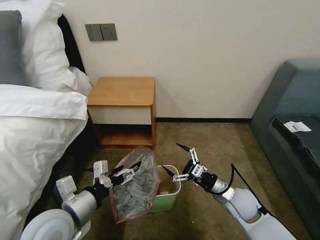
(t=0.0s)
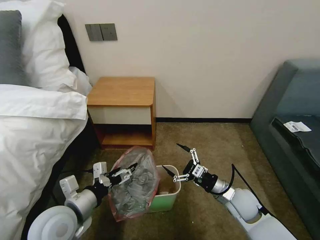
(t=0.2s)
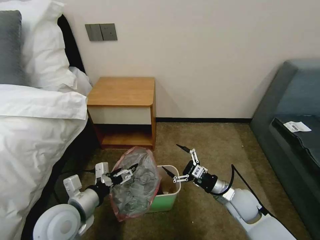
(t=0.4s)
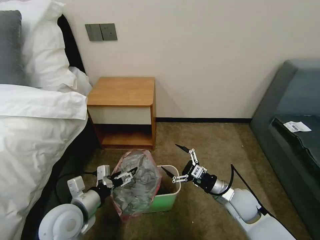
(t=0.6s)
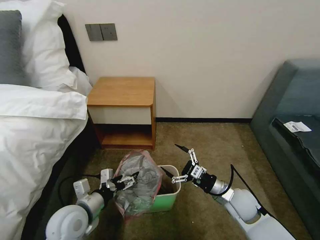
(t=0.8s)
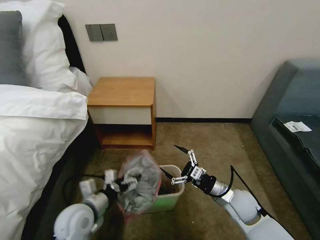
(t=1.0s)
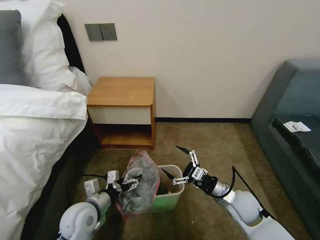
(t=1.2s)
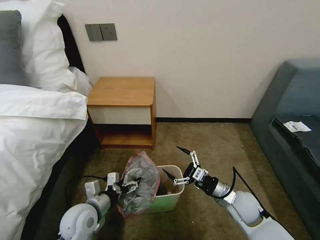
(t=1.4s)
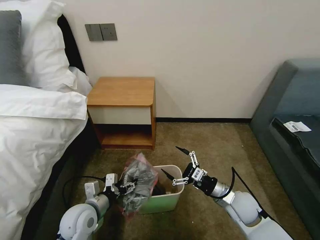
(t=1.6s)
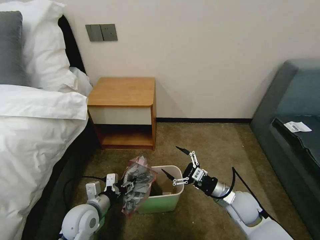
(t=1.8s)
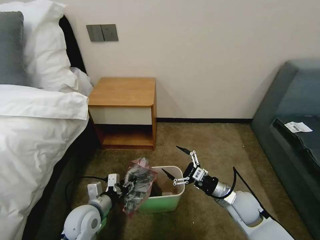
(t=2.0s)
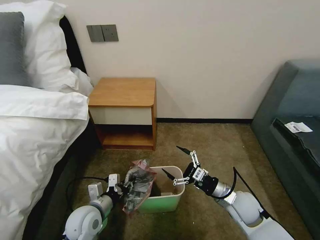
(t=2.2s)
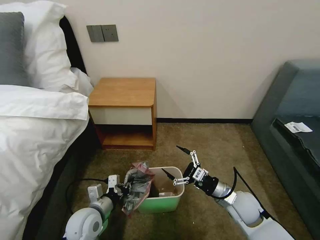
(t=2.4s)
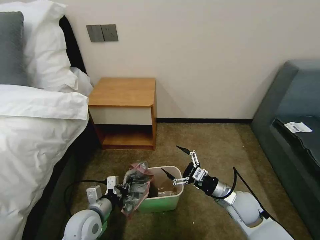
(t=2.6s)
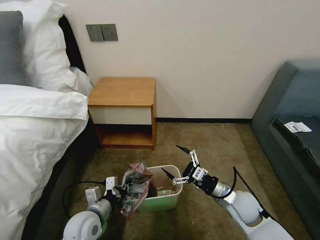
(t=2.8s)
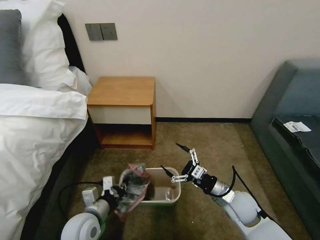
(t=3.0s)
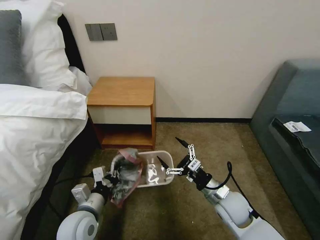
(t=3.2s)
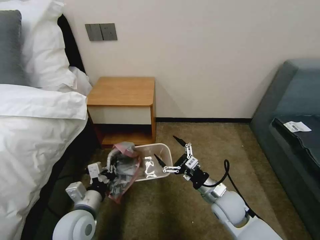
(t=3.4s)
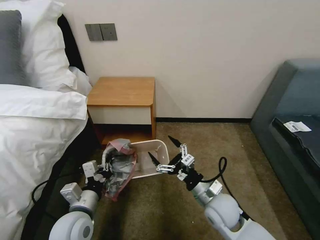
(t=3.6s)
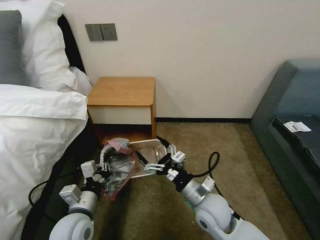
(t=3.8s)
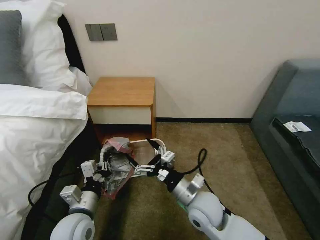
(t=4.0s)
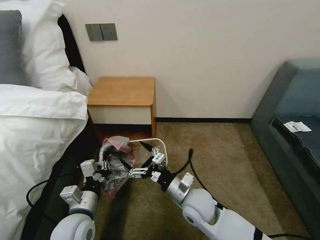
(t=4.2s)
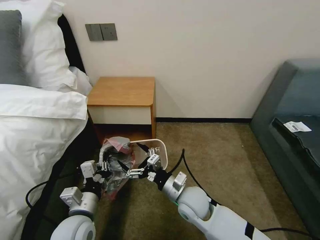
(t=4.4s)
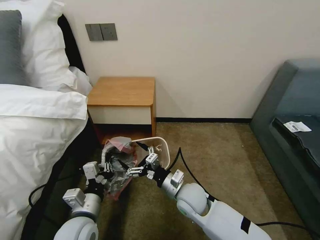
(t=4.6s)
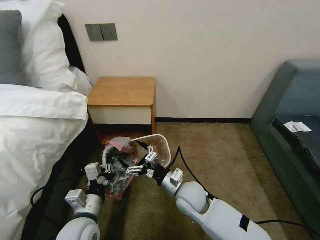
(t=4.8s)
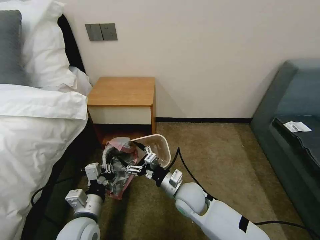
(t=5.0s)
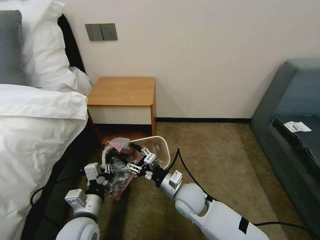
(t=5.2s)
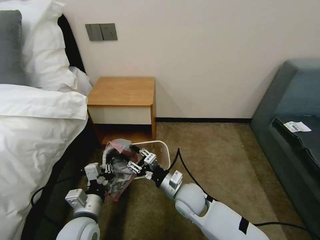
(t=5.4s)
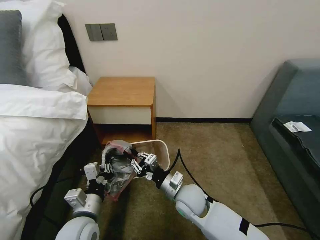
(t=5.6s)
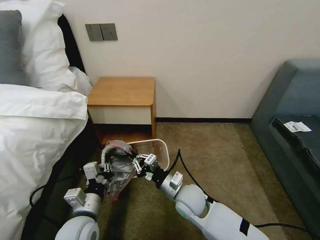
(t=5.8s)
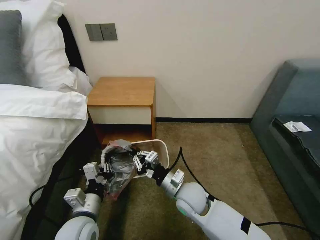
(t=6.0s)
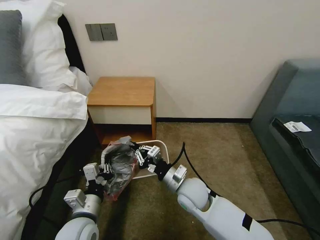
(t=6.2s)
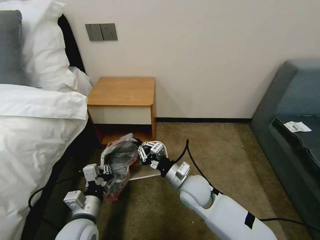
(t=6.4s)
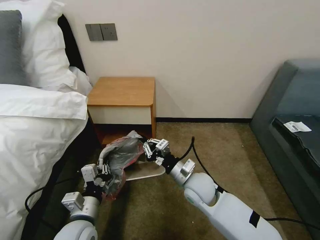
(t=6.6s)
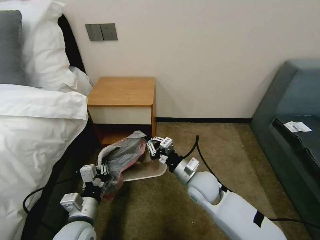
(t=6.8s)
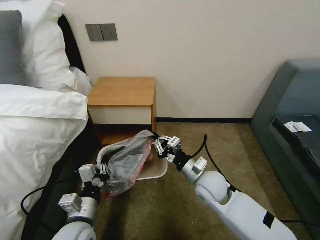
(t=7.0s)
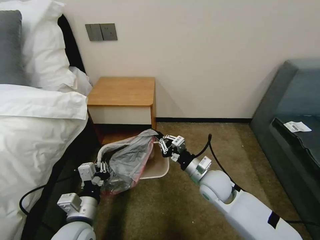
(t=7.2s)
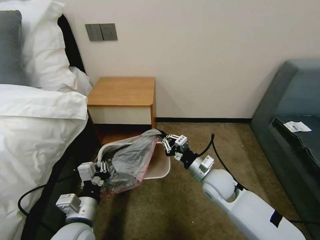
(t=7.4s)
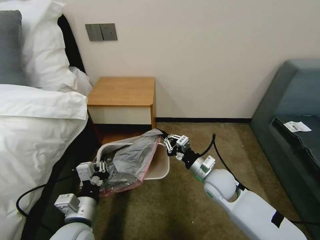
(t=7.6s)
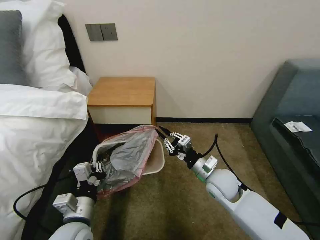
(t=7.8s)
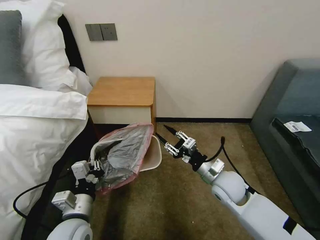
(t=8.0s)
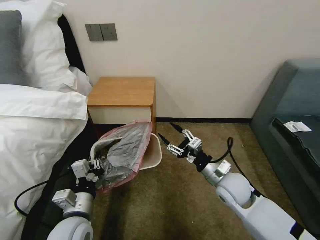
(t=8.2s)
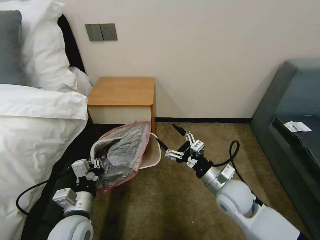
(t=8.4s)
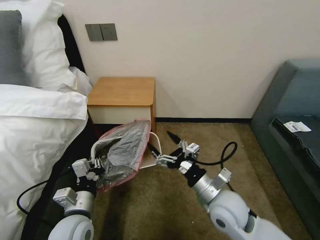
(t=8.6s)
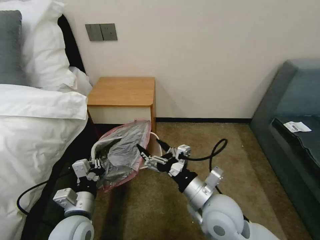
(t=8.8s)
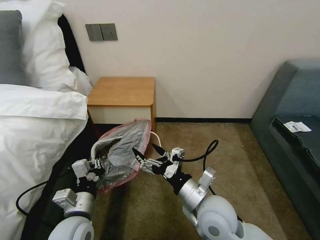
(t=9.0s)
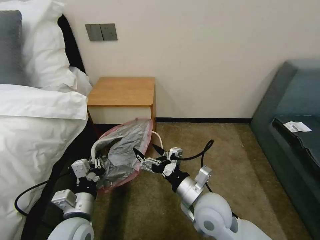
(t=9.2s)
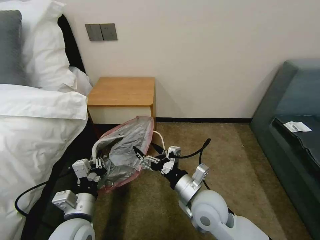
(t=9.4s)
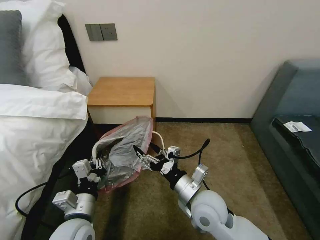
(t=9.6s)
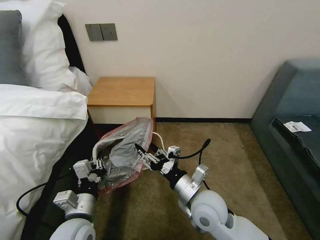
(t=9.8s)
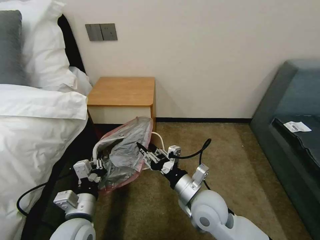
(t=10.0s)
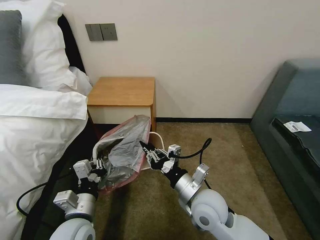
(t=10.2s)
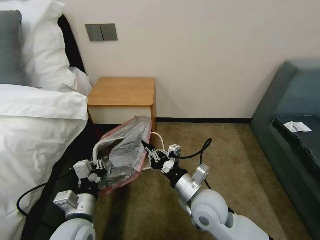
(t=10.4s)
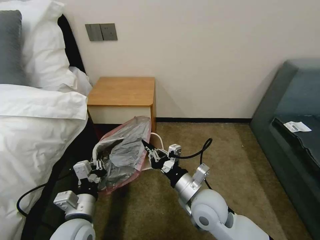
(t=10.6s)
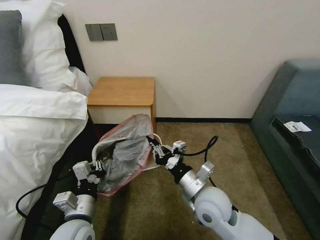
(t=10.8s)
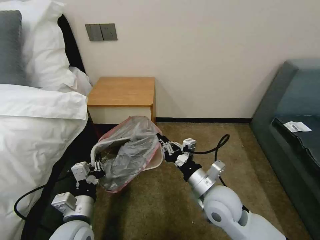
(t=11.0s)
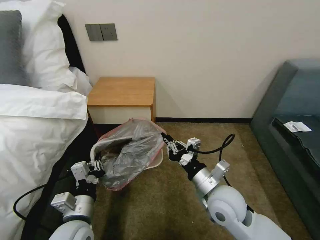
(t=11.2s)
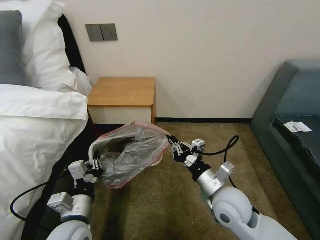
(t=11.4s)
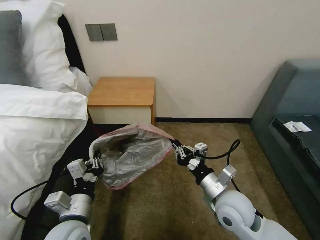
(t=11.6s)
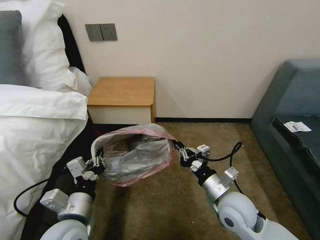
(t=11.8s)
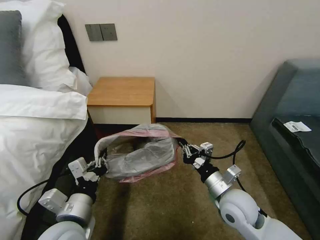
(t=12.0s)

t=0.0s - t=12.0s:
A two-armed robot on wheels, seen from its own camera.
Task of the whole recording: Pick up the garbage bag from the table and place it over the trash can.
t=0.0s - t=1.6s: The left gripper shifts about 15 cm downward.
t=1.6s - t=3.0s: The left gripper closes its fingers.
t=3.0s - t=4.4s: The right gripper is displaced to the left by some 15 cm.
t=4.4s - t=6.0s: The right gripper closes its fingers.
t=6.0s - t=7.6s: The right gripper is displaced to the right by approximately 10 cm.
t=7.6s - t=9.0s: The right gripper moves backward, upward and to the left, some 15 cm, and opens.
t=9.0s - t=10.4s: The right gripper closes.
t=10.4s - t=12.0s: The right gripper moves to the right, approximately 10 cm. The left gripper moves upward, approximately 5 cm.

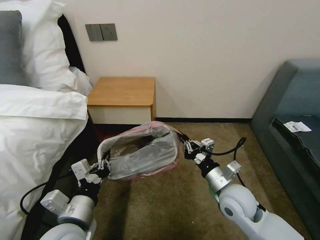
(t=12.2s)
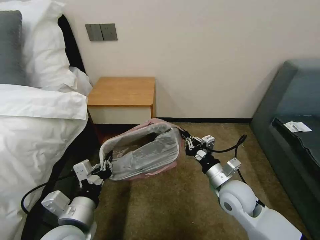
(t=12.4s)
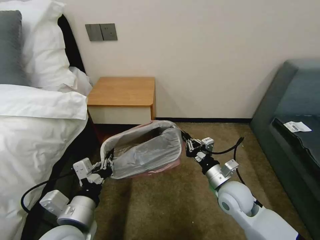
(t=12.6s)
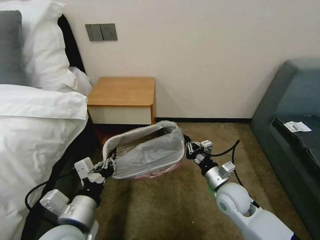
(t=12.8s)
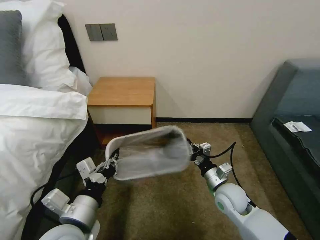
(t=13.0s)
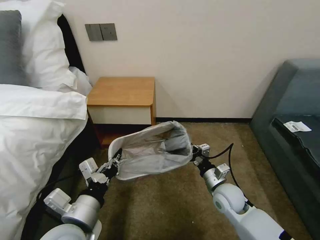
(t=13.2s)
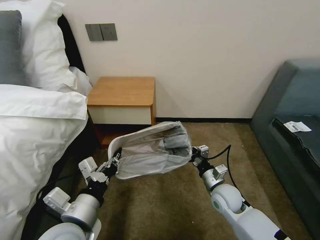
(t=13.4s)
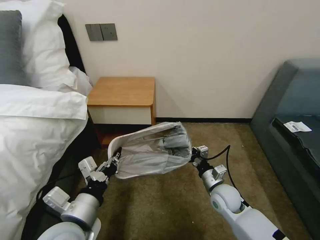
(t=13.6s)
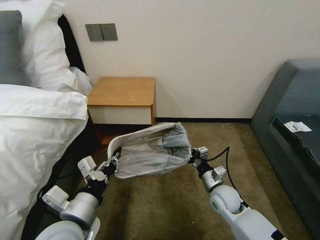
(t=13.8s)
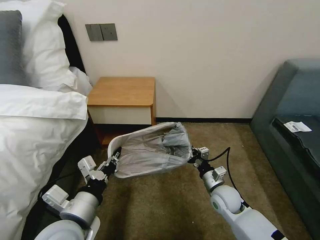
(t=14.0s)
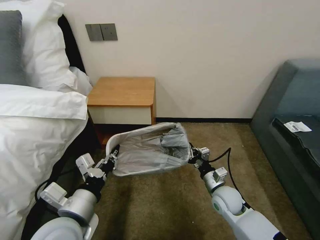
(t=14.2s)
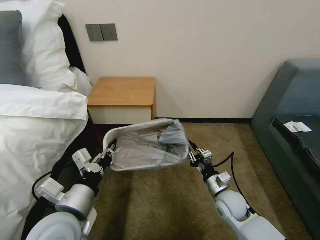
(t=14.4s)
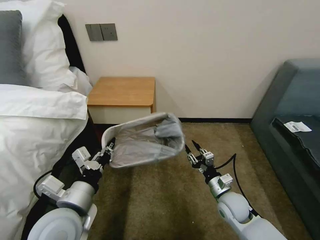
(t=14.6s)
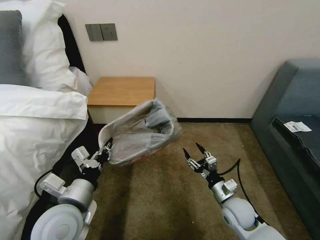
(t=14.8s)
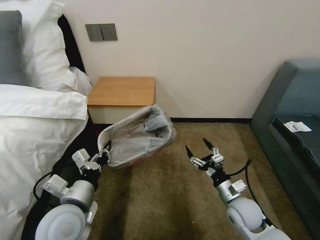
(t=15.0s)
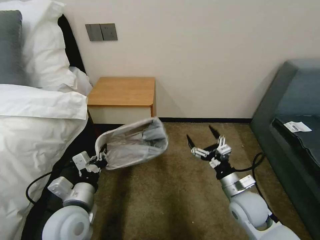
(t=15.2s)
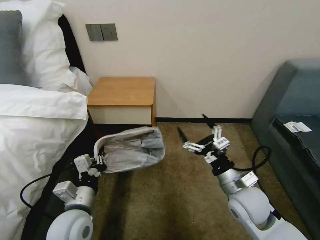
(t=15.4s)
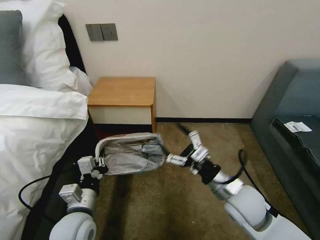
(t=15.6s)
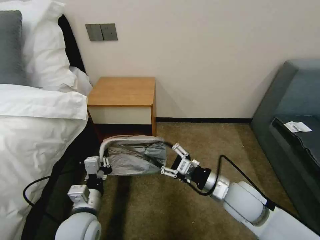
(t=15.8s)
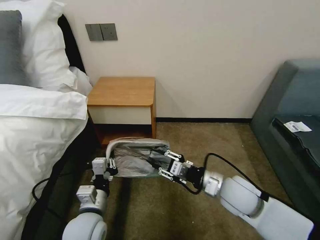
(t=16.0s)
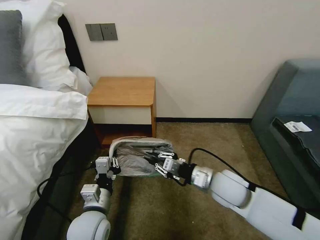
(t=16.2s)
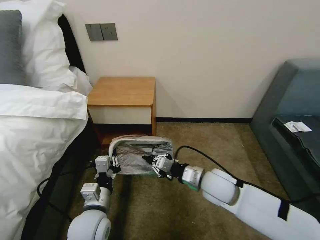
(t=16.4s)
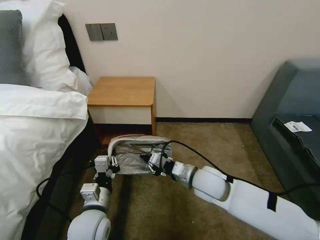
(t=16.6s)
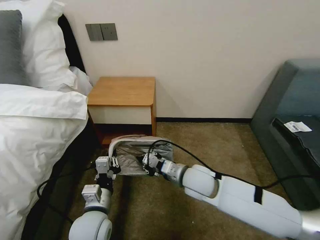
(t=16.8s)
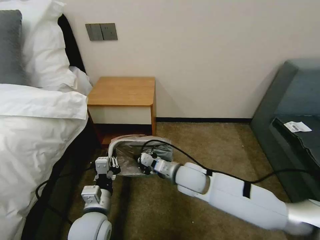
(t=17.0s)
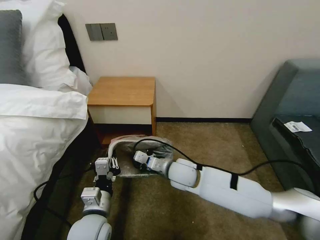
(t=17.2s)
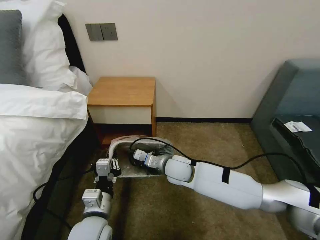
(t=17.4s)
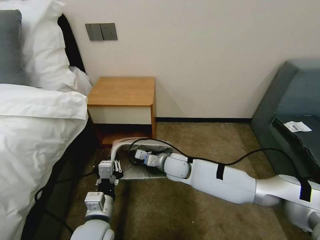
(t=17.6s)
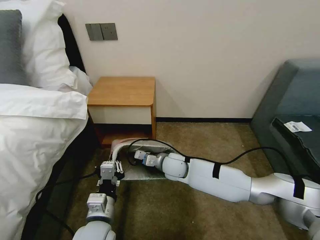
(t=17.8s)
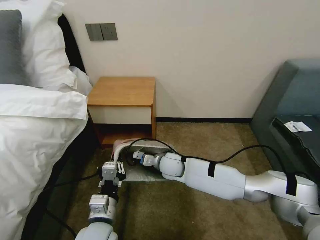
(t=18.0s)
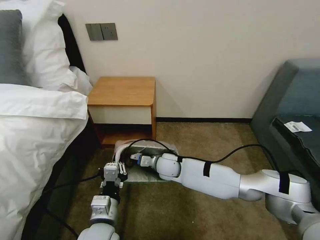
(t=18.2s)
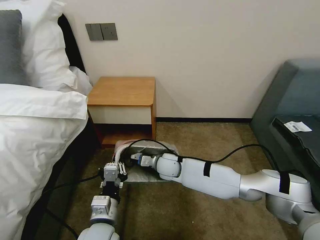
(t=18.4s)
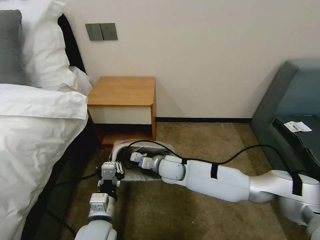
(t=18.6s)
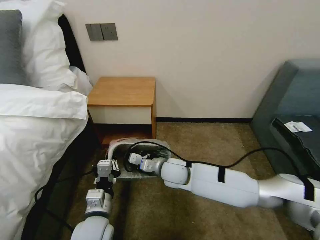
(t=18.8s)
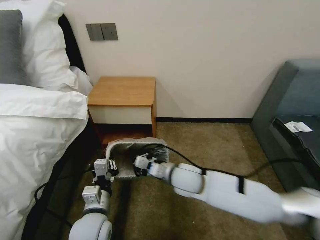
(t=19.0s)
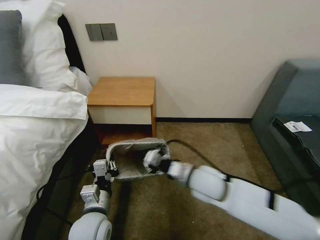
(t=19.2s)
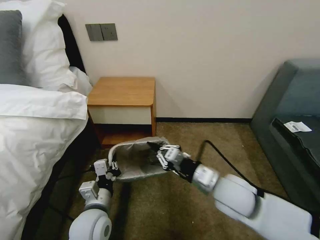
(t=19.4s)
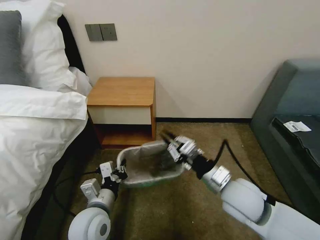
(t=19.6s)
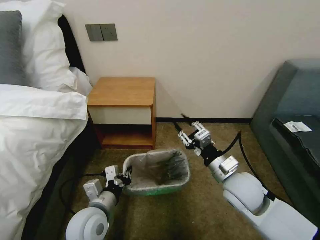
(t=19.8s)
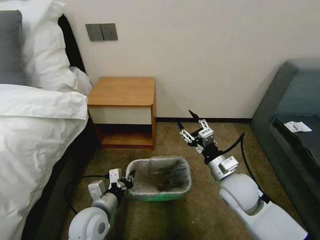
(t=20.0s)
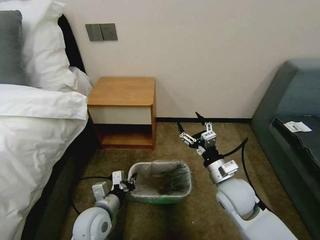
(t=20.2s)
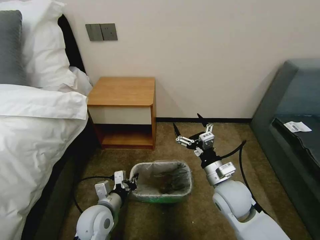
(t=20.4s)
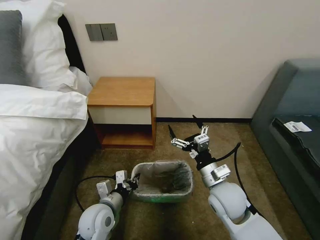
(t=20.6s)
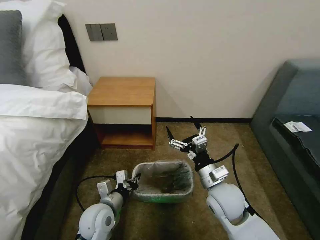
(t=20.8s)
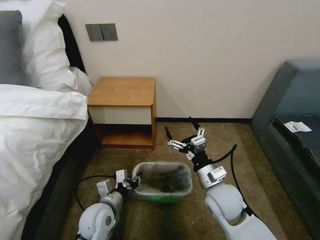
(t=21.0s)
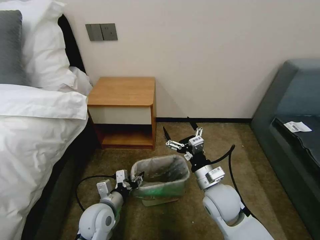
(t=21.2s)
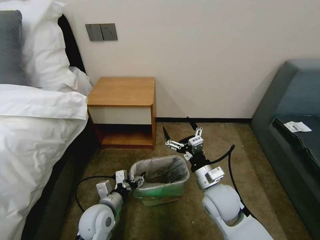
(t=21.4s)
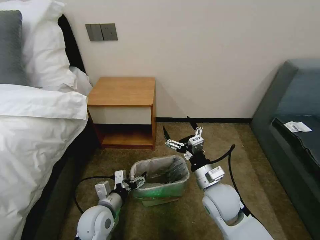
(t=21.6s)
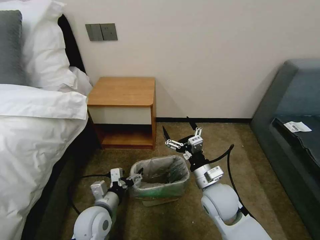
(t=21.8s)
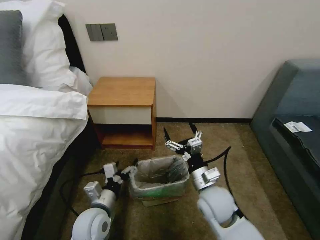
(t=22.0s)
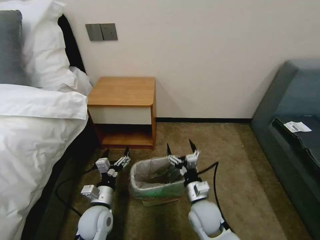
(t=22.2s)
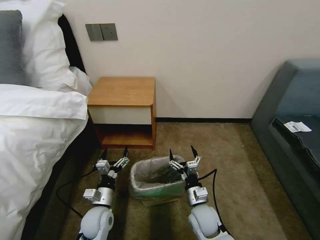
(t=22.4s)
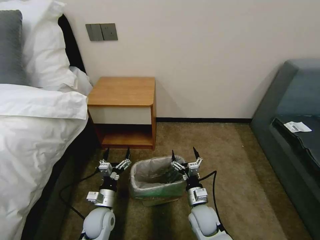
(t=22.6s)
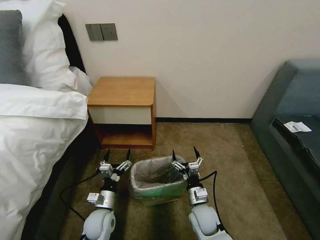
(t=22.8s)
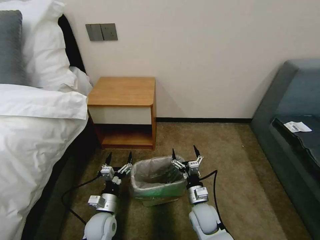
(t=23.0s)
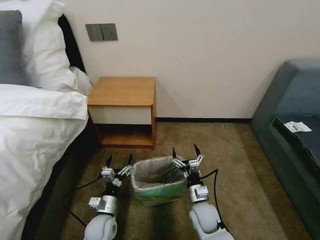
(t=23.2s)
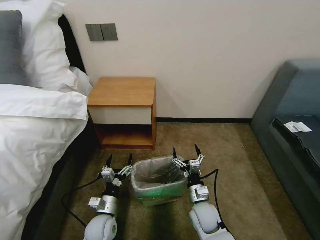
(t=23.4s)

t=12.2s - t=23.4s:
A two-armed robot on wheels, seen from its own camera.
Task of the whole recording: Pick up the garbage bag from the table and place it over the trash can.
t=12.2s - t=13.8s: The right gripper goes about 10 cm downward.
t=13.8s - t=15.4s: The left gripper travels downward by about 5 cm, while the right gripper shifts approximately 15 cm upward and backward, and opens up.
t=15.4s - t=17.0s: The left gripper shifts by some 5 cm. The right gripper travels to the left and forward by roughly 15 cm, and closes up.
t=17.0s - t=18.6s: The right gripper heads forward and to the left, covering approximately 10 cm.
t=18.6s - t=20.2s: The right gripper heads to the right and backward, covering approximately 20 cm, and opens up. The left gripper changes place by about 5 cm.
t=20.2s - t=21.8s: The left gripper opens.
t=21.8s - t=23.4s: The grippers both shift downward by some 15 cm.
